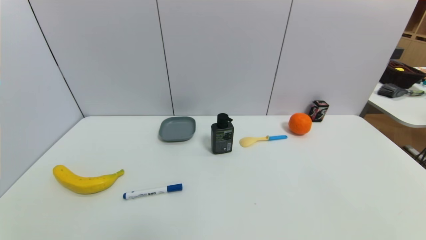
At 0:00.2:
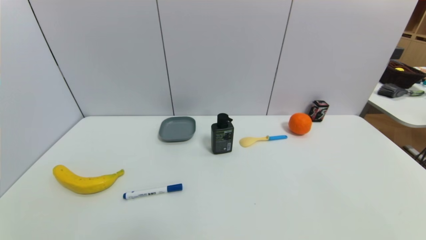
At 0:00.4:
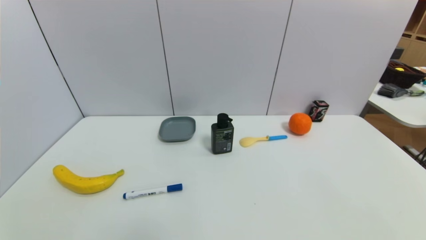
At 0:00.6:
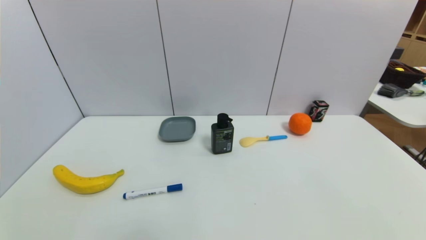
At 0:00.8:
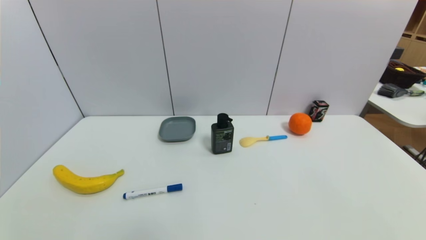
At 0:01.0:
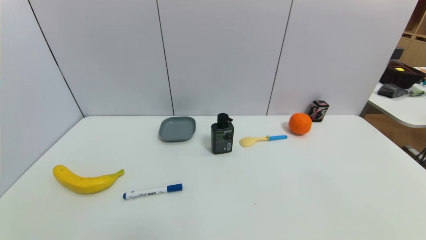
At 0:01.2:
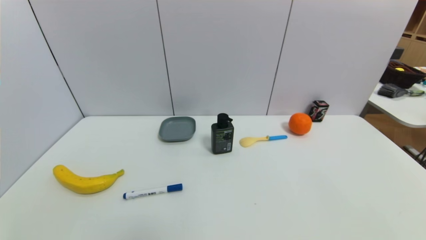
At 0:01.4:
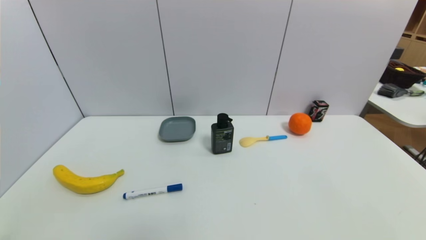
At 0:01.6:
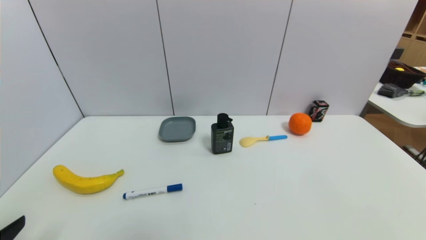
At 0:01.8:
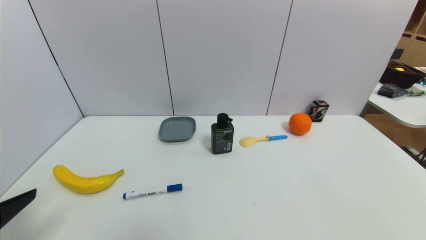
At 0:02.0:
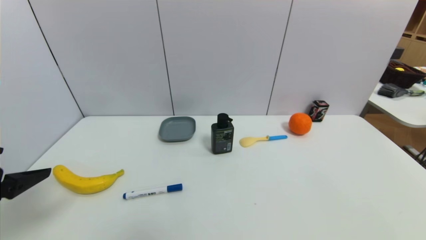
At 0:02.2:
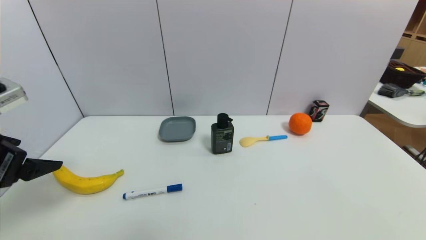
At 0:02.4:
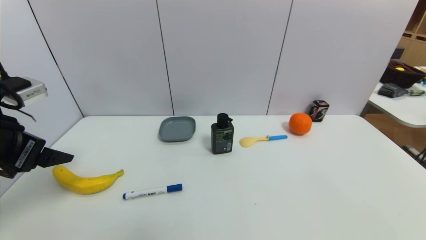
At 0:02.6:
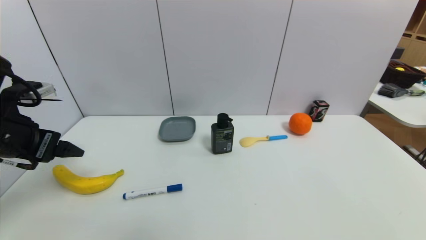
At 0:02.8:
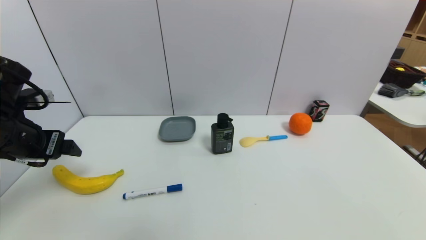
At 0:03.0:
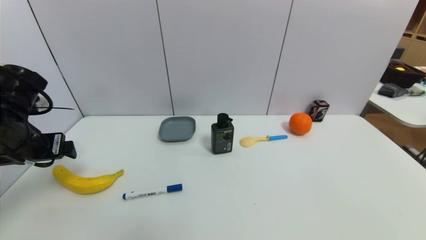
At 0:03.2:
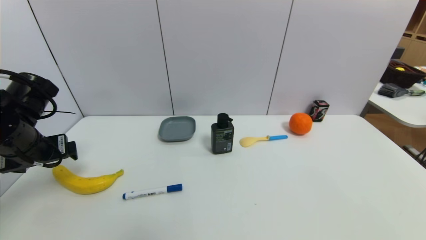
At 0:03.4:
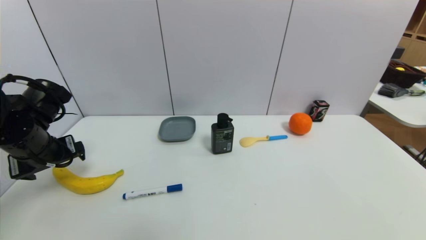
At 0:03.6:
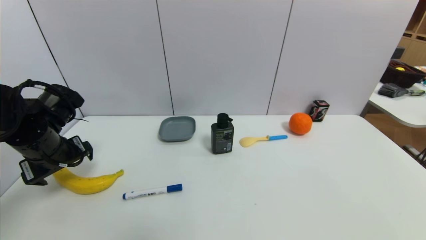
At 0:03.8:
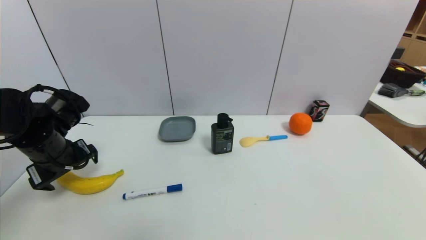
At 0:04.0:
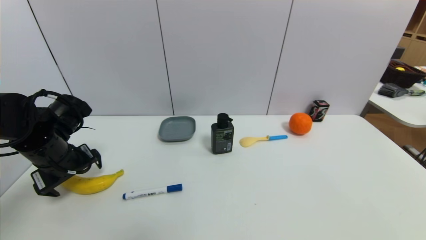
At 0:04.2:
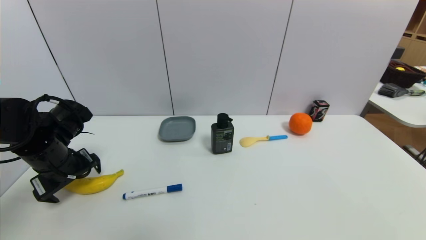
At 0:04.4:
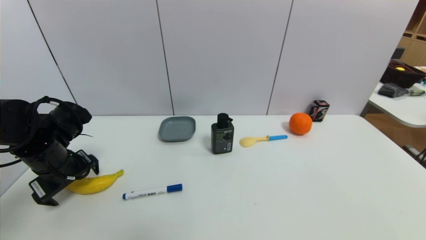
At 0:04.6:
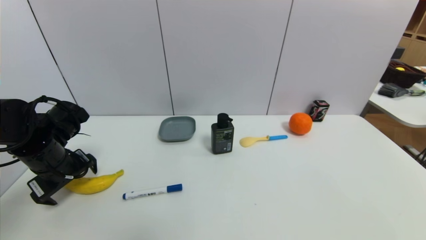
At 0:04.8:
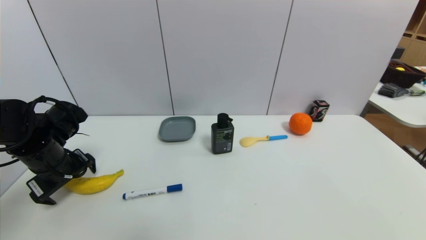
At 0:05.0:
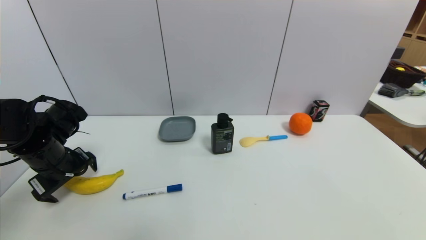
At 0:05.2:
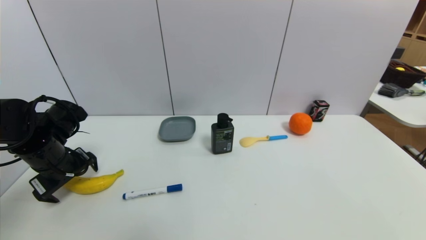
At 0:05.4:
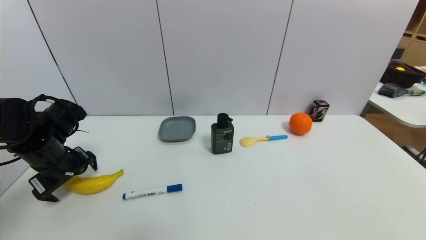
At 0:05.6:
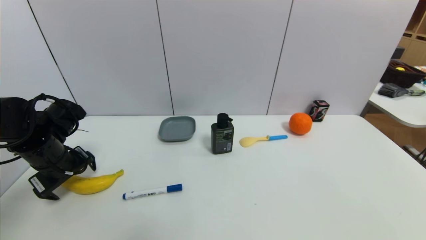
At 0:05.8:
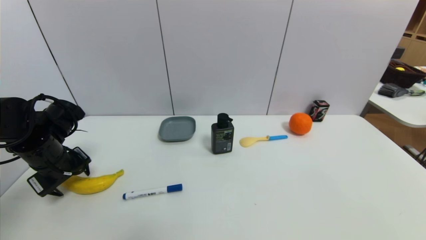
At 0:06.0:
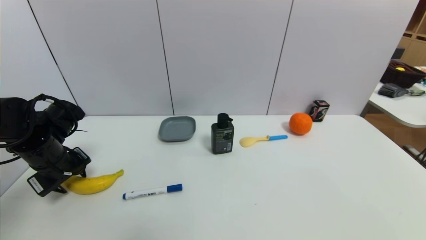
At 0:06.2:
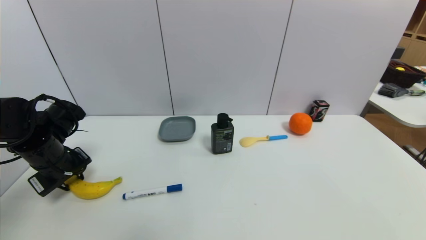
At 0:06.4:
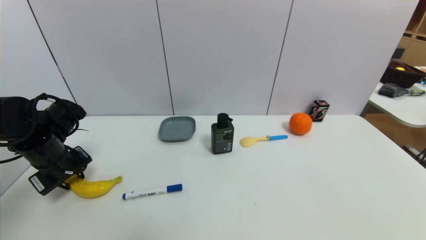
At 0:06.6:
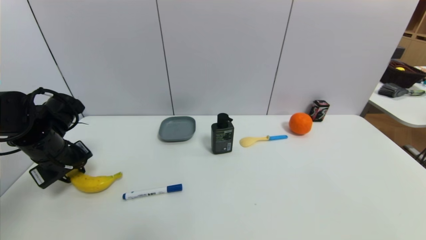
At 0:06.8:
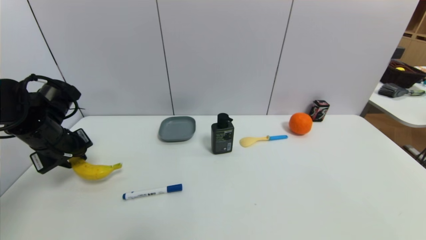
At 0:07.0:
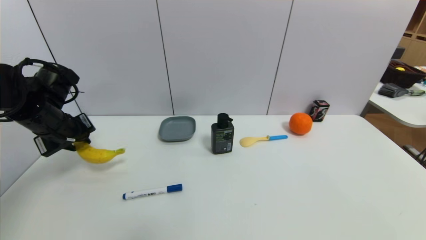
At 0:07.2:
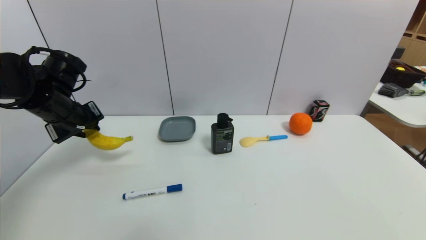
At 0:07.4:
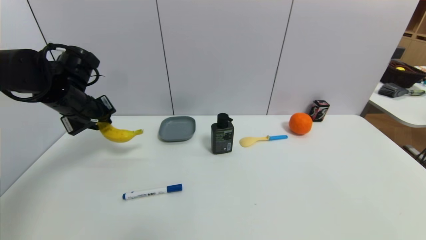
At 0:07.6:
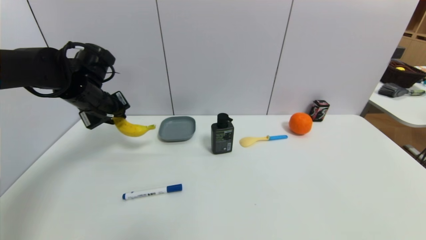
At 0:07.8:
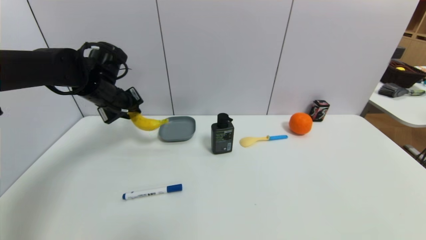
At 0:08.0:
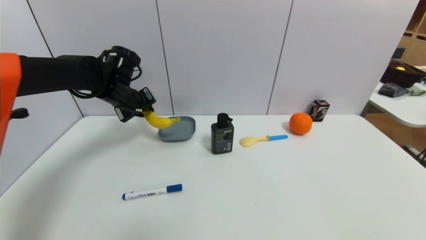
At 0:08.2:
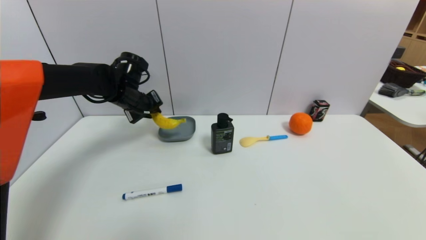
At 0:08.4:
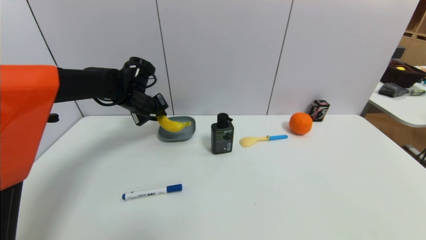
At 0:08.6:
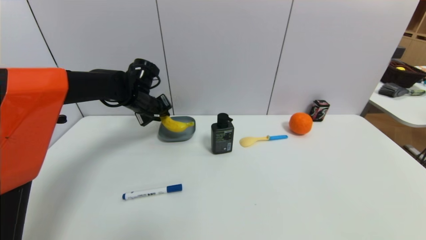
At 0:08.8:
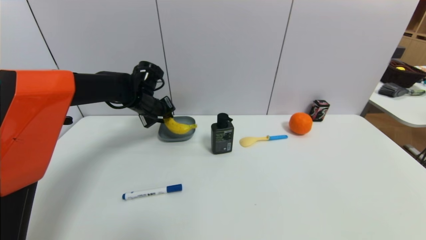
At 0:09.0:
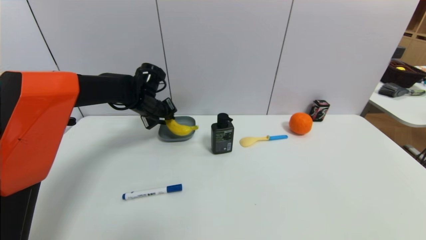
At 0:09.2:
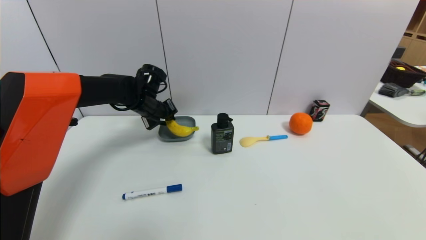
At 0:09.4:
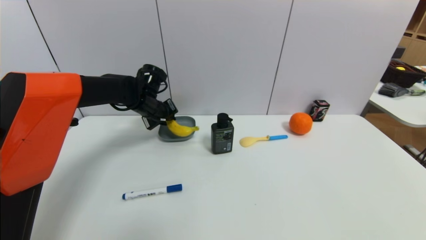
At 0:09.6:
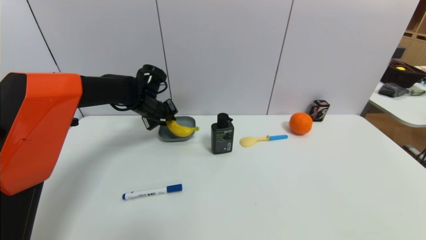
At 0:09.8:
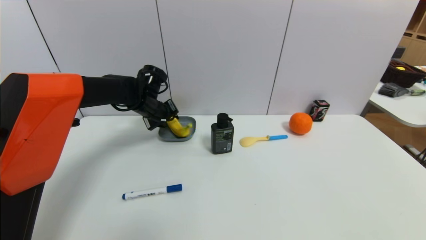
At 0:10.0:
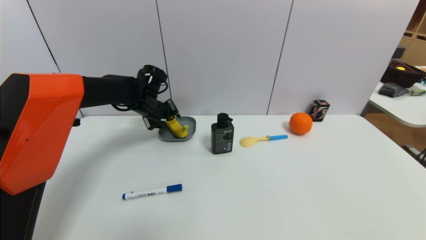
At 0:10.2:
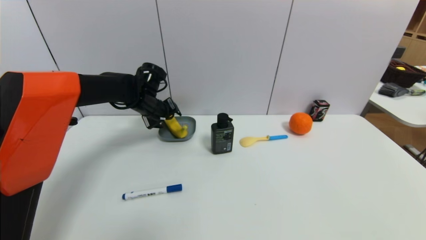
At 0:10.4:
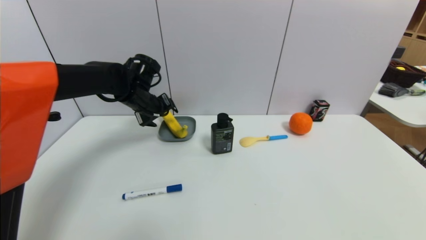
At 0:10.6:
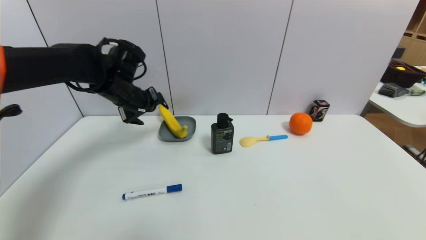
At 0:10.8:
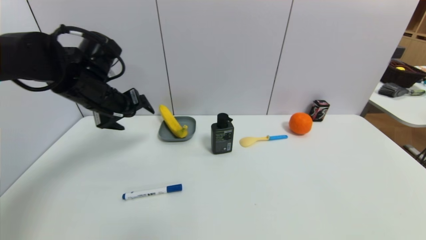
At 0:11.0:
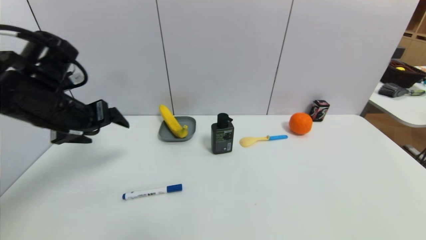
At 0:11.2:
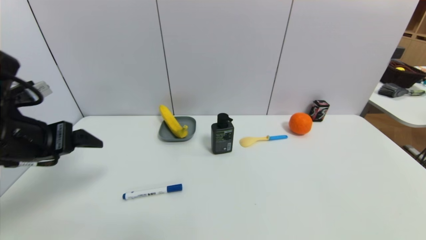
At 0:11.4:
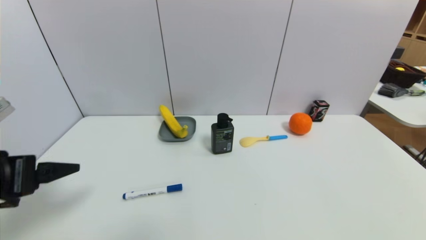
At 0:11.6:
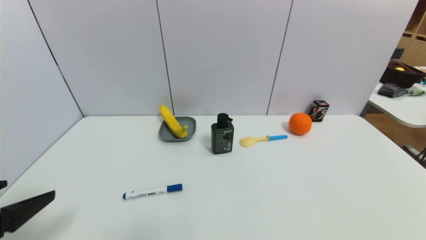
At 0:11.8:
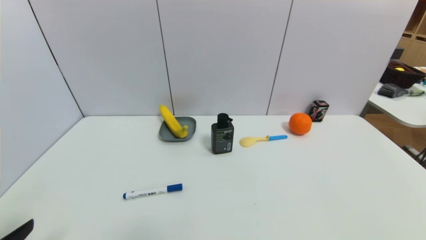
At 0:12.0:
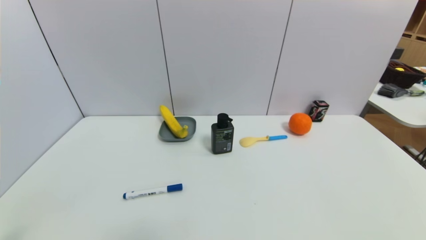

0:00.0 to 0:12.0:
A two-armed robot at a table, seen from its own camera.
Task of the whole recording: use a gripper to pick the target object and place on the dish.
Step, 0:00.0 to 0:06.2: Grasp the banana with the left gripper.
Step, 0:06.4 to 0:10.4: Place the banana on the dish with the left gripper.
0:01.6 to 0:03.0: The left gripper shifts some 20 cm forward.
0:03.0 to 0:04.4: The left gripper is displaced downward by about 5 cm.
0:04.4 to 0:06.0: The left gripper closes its fingers.
0:06.0 to 0:07.6: The left gripper goes roughly 15 cm forward, upward and to the right.
0:07.6 to 0:09.0: The left gripper is displaced to the right, forward and downward by about 15 cm.
0:09.0 to 0:10.4: The left gripper opens its fingers.
0:10.4 to 0:12.0: The left gripper is displaced backward by about 40 cm.

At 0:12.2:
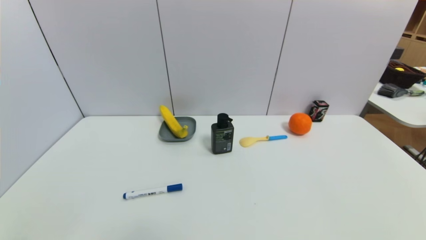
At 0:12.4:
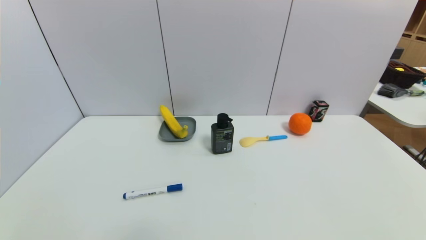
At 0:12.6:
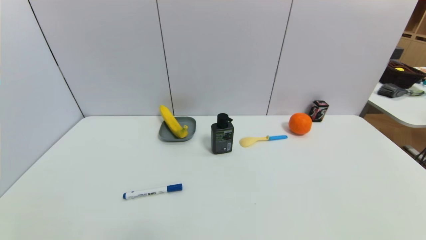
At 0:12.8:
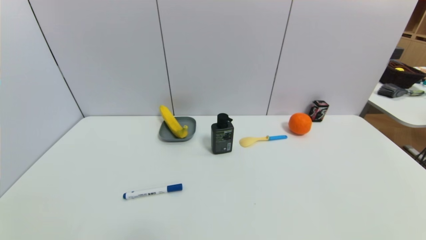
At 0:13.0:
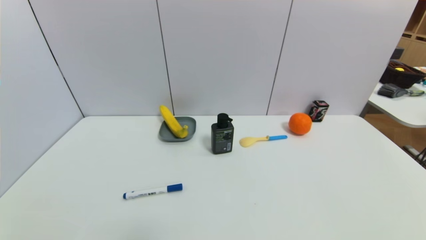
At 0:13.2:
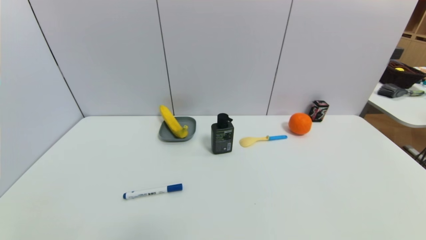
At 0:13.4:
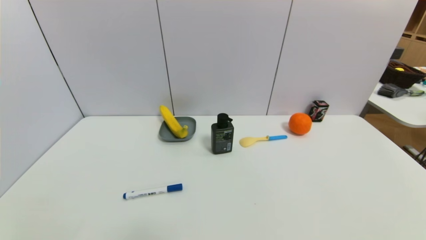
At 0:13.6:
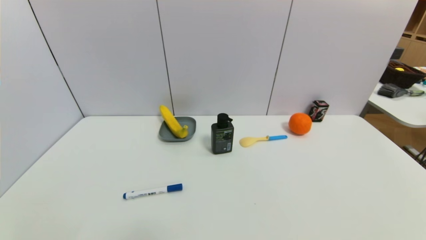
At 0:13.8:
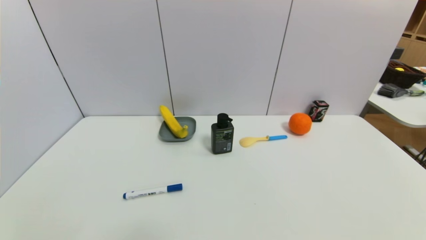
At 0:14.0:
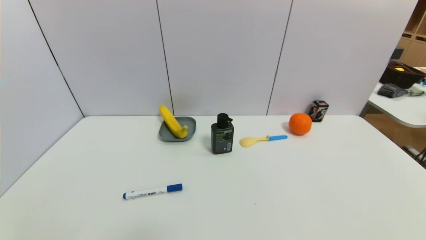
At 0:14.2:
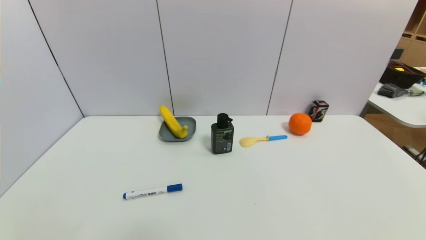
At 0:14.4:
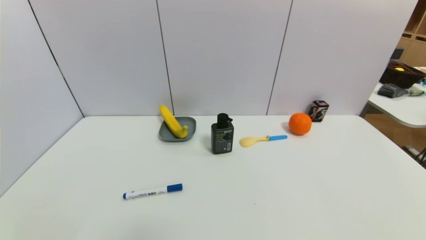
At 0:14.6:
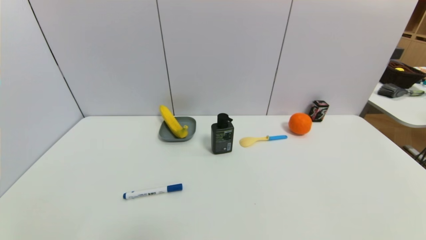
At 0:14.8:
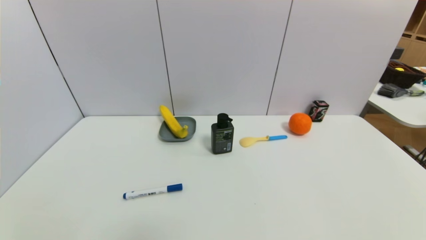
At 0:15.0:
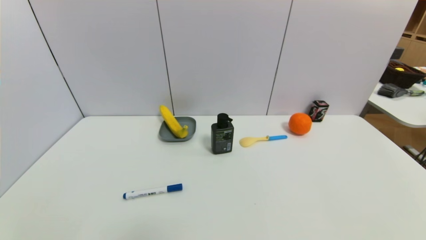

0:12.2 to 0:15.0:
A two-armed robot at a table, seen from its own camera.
Task of the whole recording: use a gripper to pick the target object and place on the dish.
0:13.6 to 0:15.0: Both grippers stay put.
